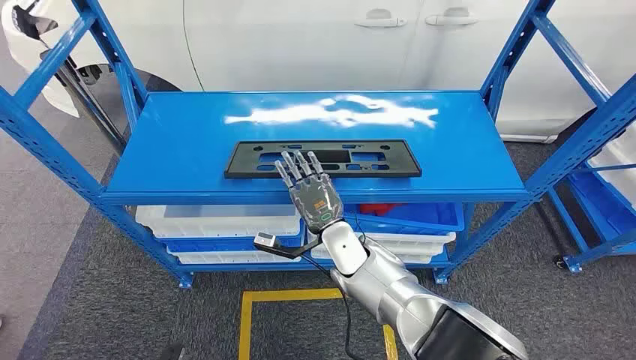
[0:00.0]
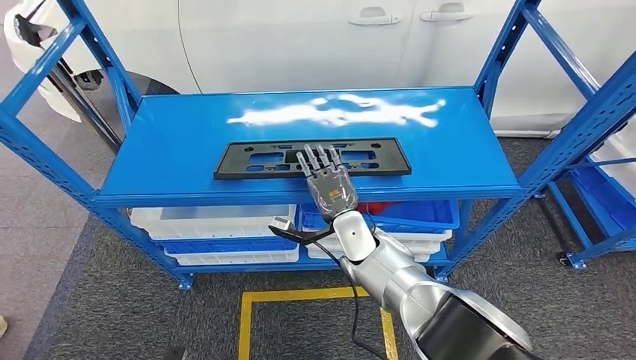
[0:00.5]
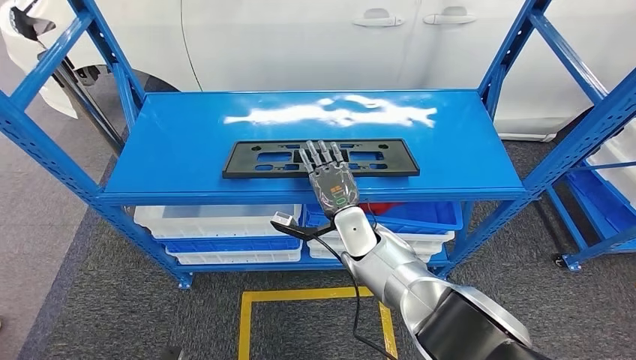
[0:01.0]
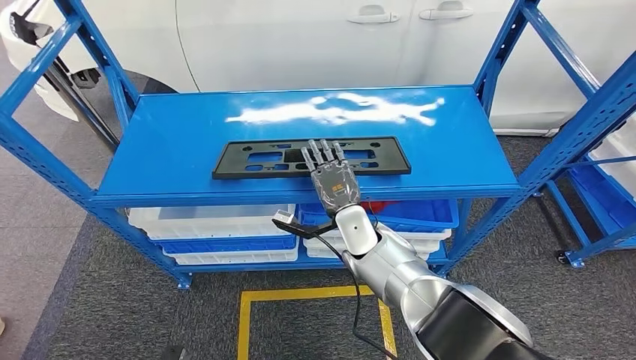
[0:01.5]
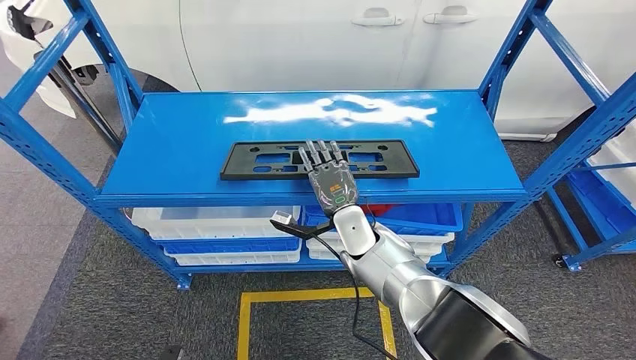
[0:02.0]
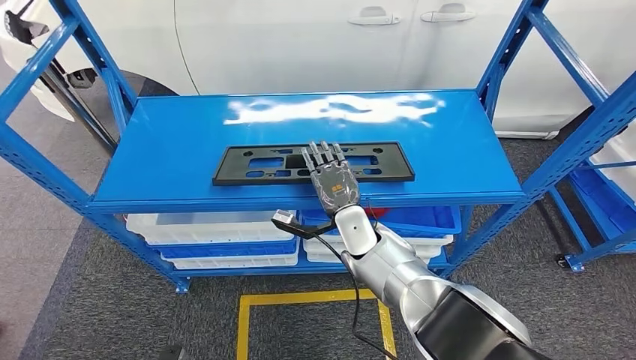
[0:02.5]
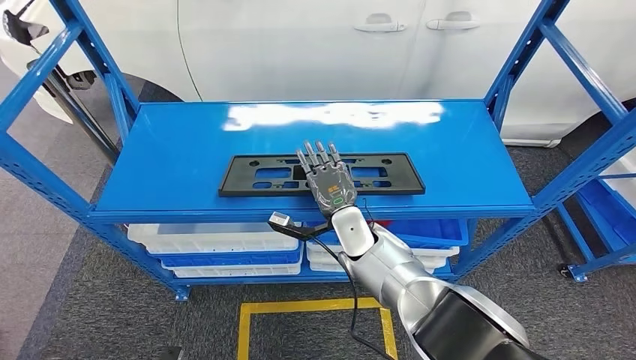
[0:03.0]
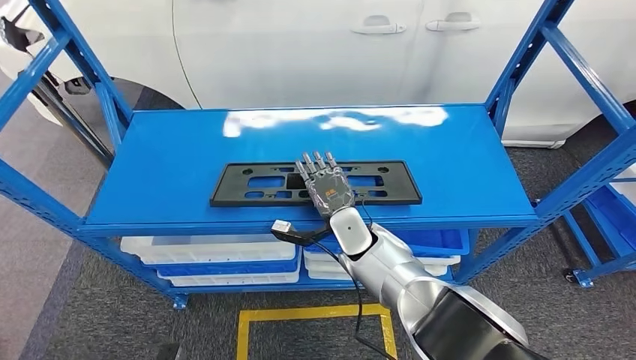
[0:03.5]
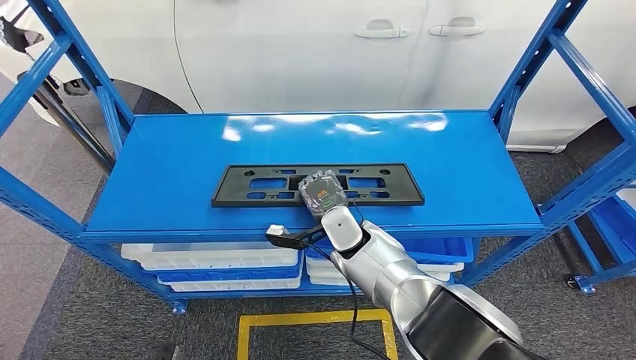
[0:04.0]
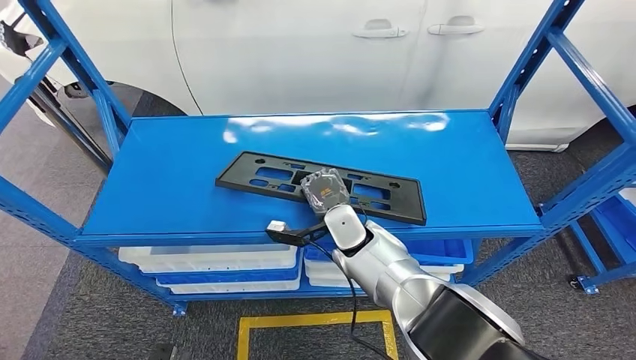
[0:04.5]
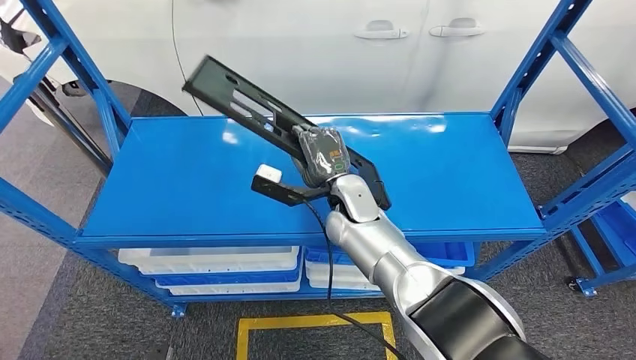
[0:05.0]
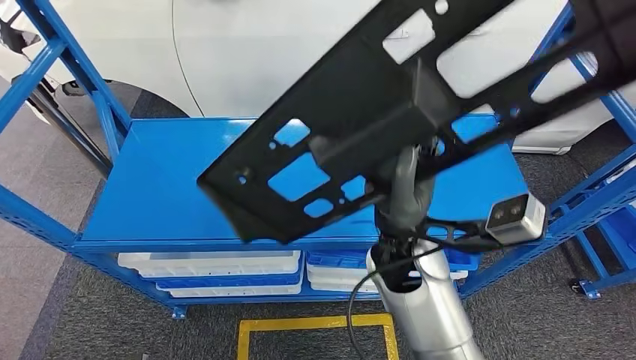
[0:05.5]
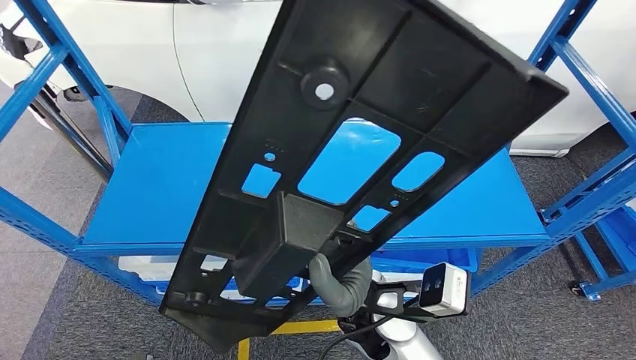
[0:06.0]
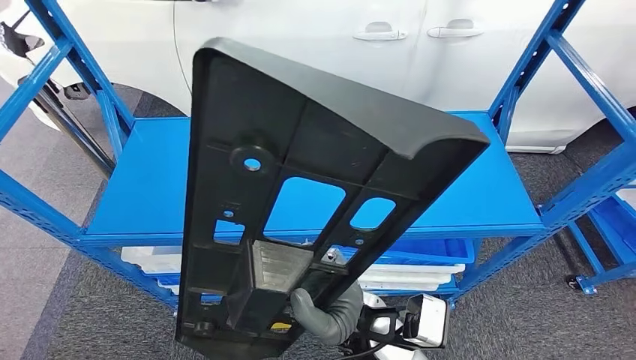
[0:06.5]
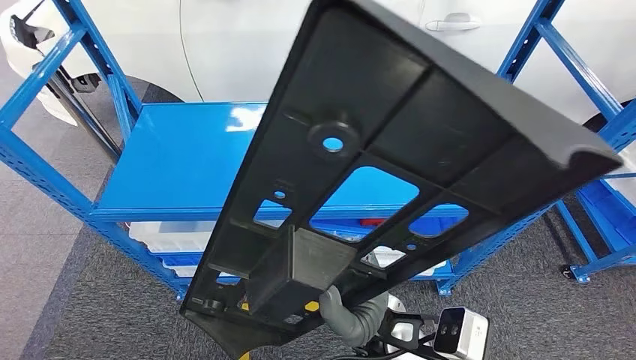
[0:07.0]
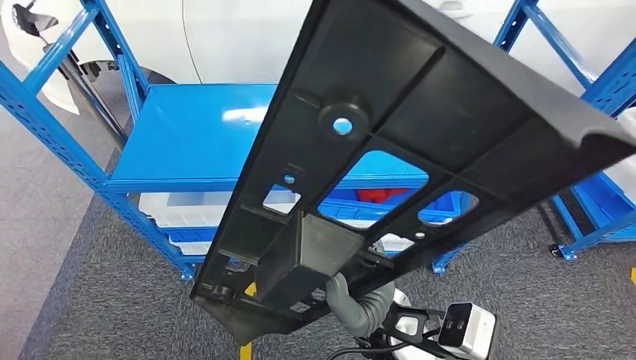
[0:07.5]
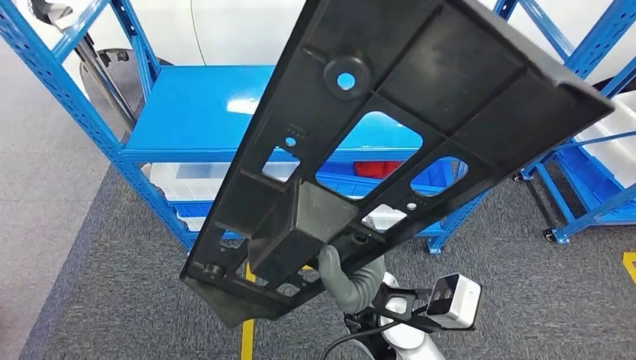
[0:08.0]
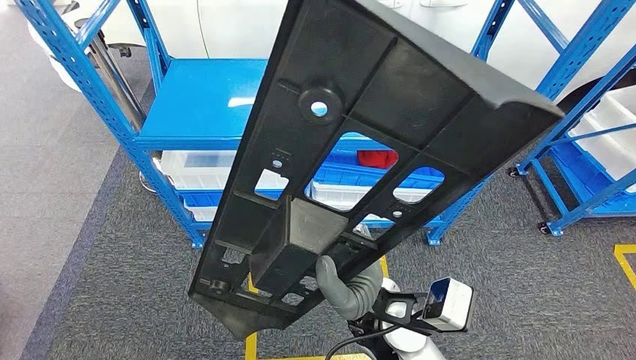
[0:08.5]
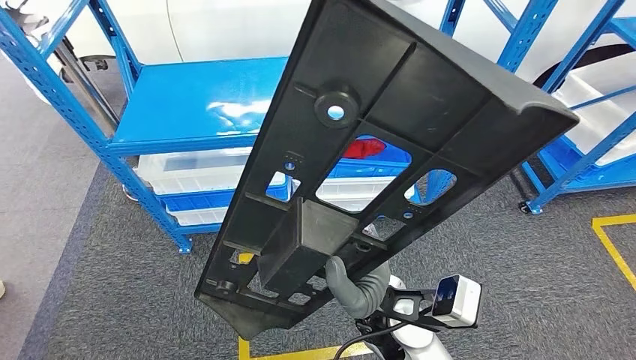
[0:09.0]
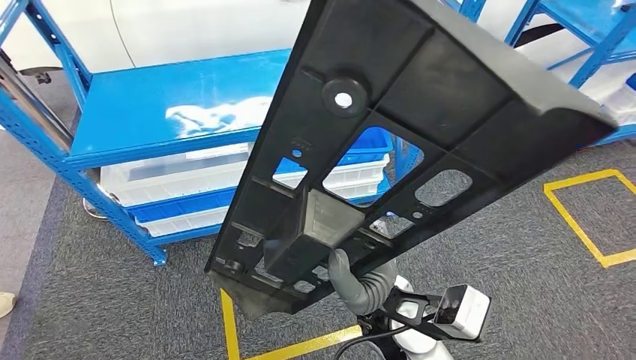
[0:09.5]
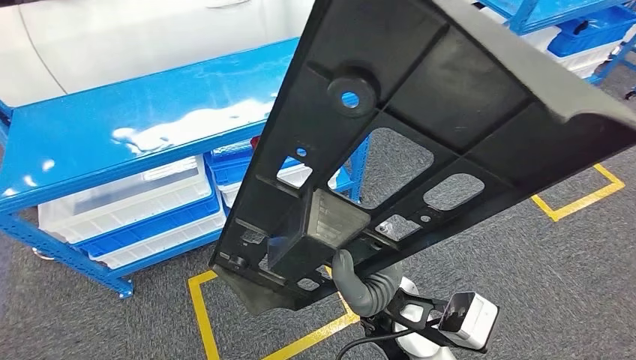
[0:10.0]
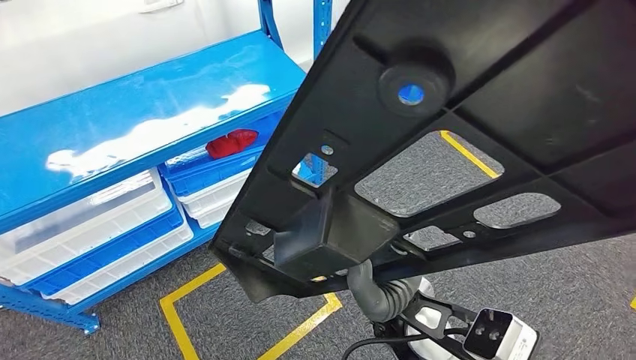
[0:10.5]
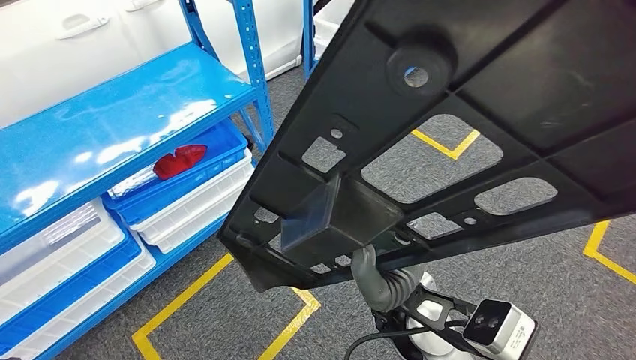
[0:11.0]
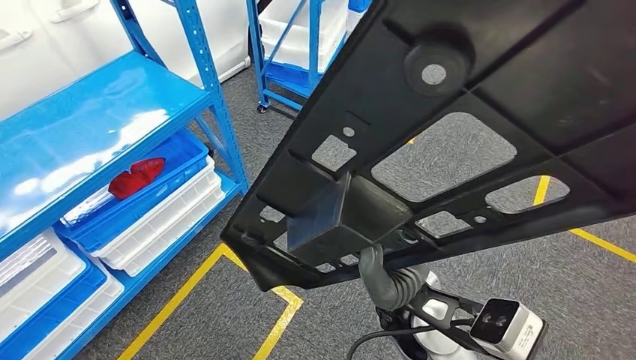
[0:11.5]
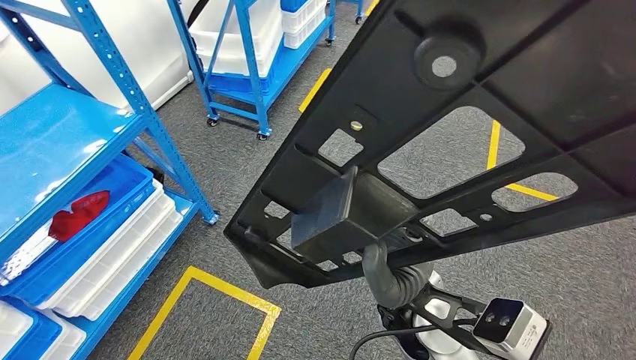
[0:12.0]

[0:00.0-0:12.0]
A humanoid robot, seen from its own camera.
Step, 0:00.0 to 0:06.5: Pick up the large material from the shelf.

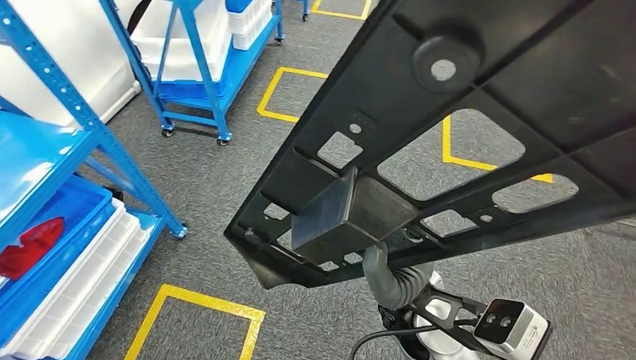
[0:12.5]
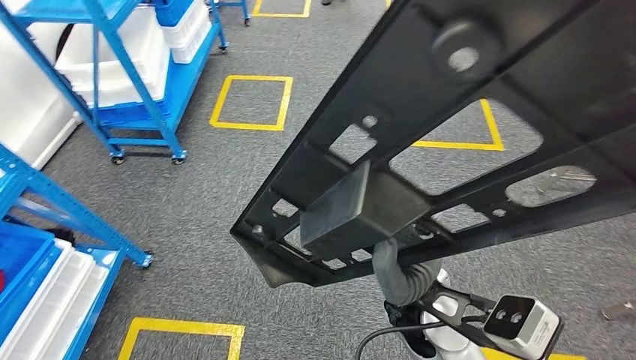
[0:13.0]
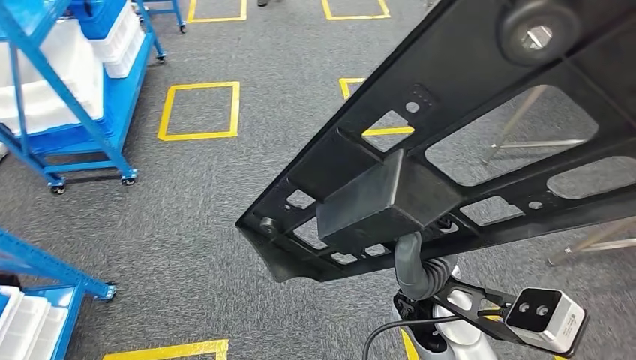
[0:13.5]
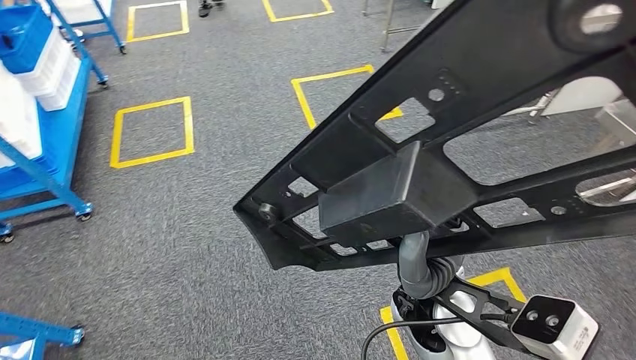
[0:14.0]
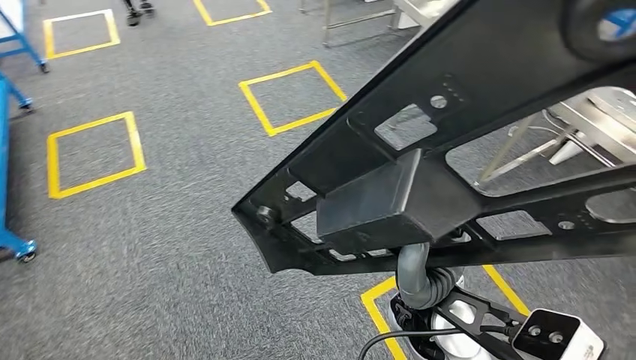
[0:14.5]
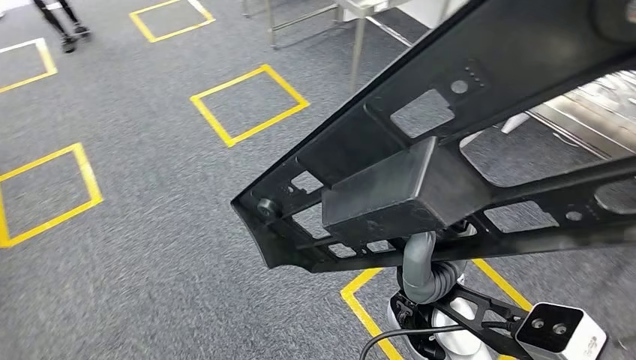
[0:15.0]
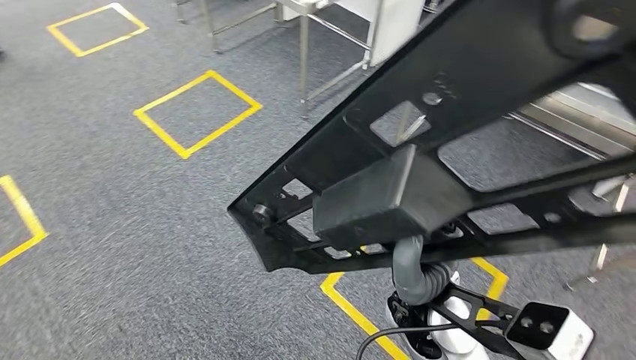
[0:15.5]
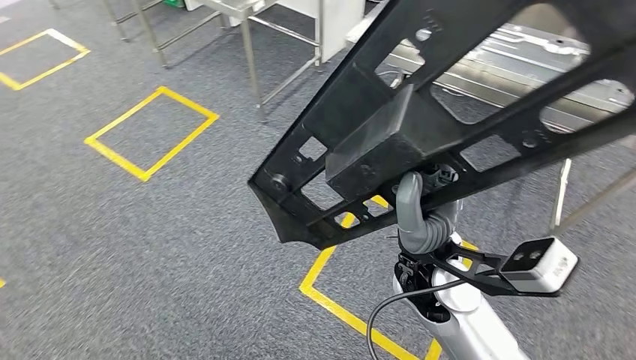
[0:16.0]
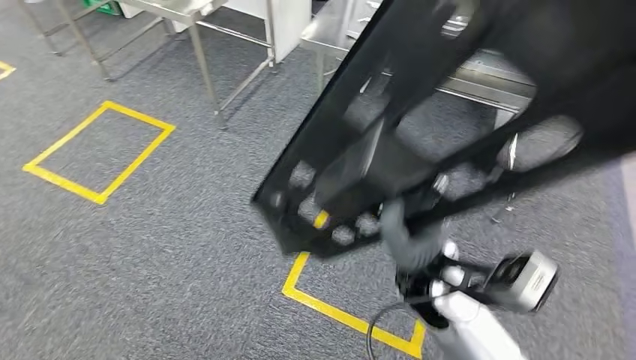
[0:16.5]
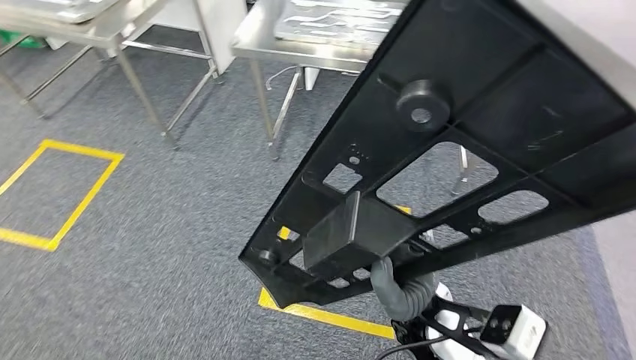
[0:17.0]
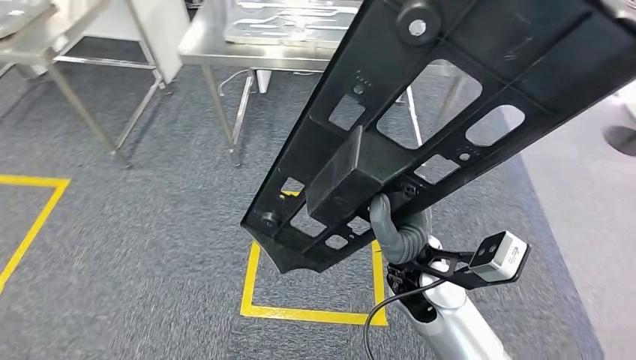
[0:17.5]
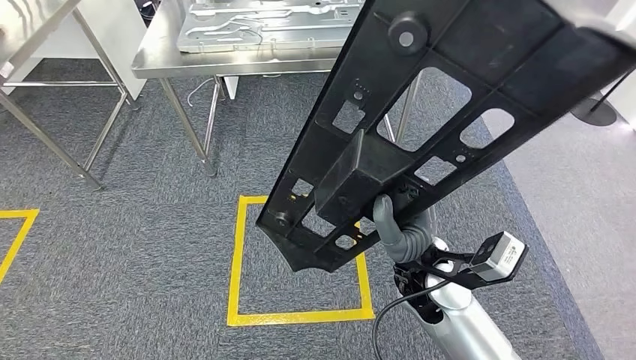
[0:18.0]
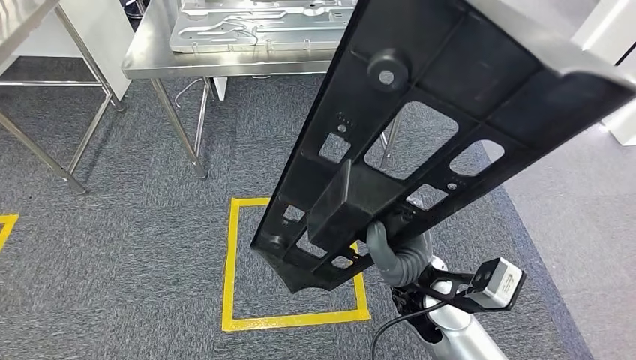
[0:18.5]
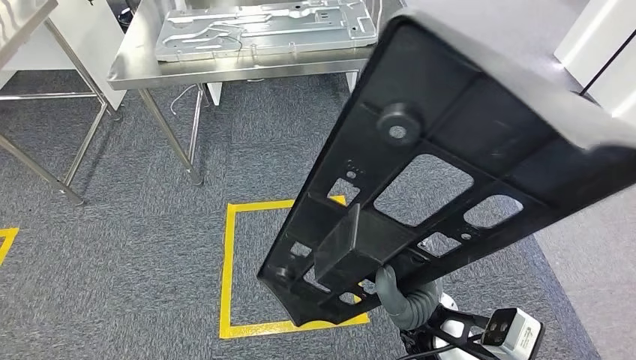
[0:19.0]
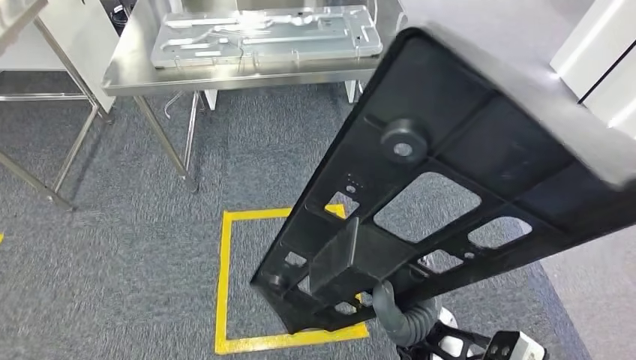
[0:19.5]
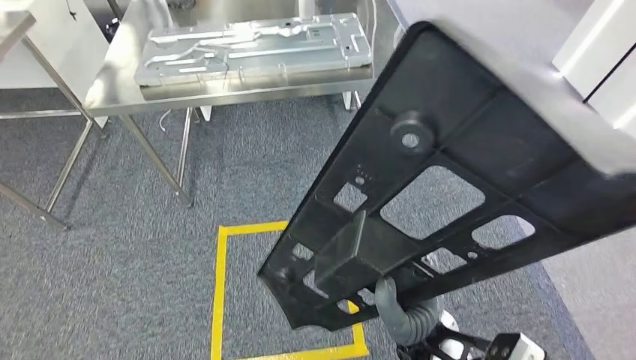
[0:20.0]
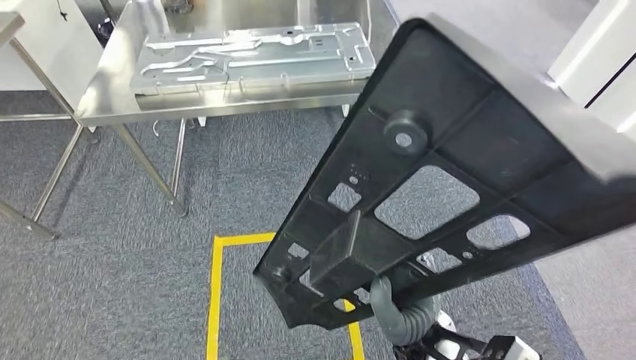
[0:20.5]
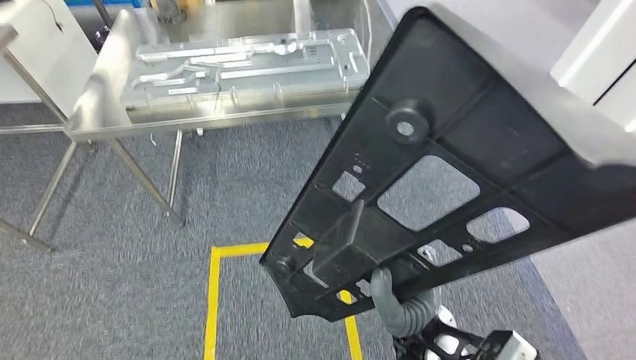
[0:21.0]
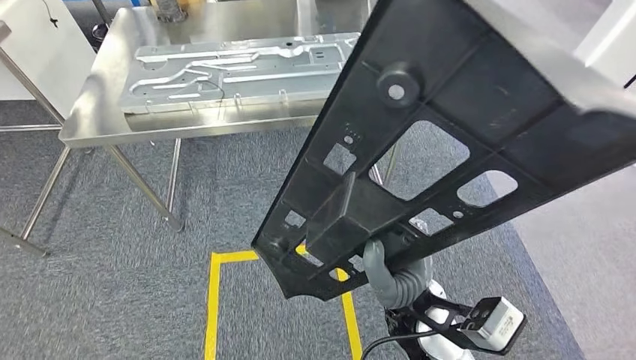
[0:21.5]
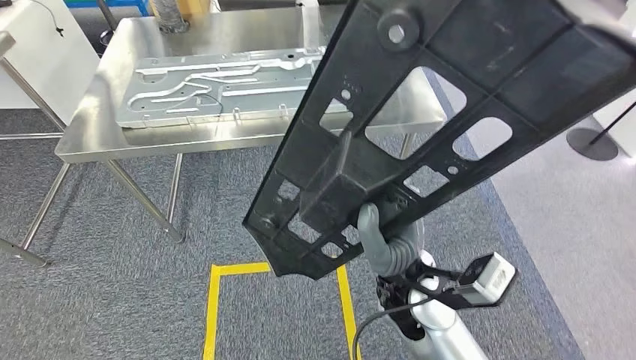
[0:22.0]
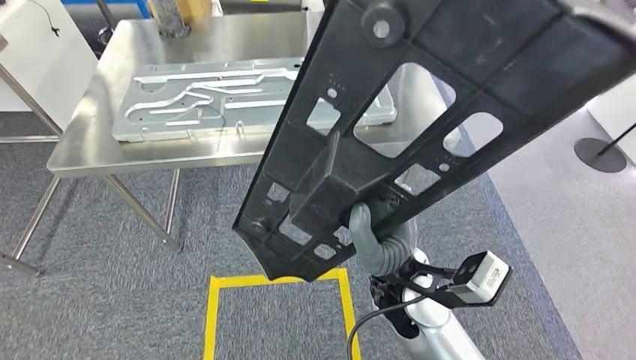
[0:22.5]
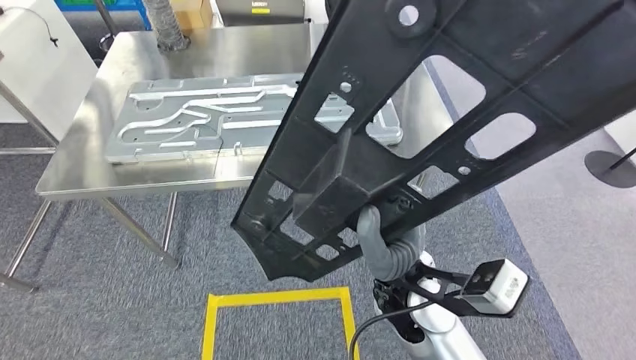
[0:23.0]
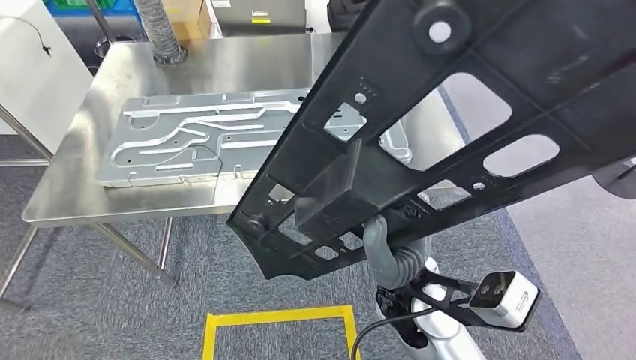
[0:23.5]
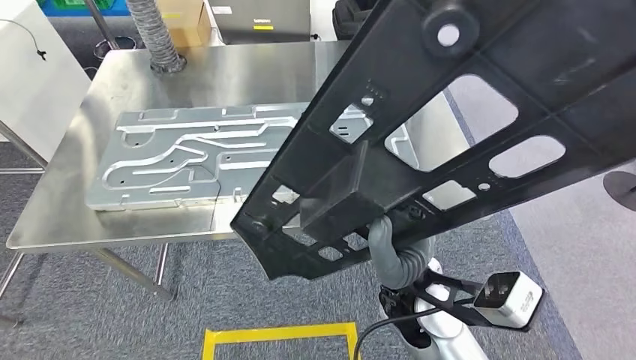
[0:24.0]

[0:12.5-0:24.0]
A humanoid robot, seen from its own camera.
Step, 0:12.5 to 0:23.0: Move the large material to the workbench.
